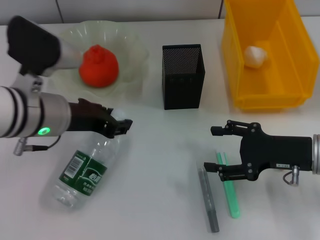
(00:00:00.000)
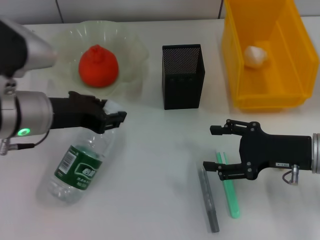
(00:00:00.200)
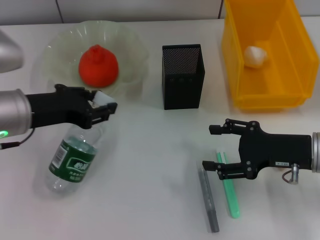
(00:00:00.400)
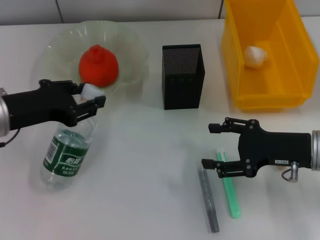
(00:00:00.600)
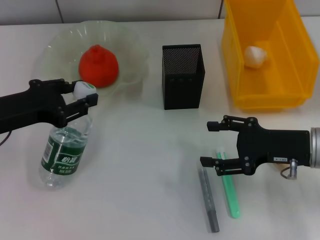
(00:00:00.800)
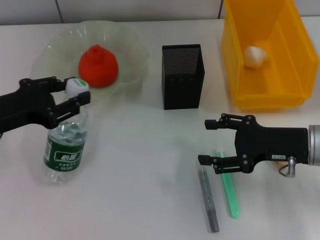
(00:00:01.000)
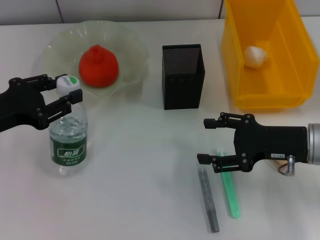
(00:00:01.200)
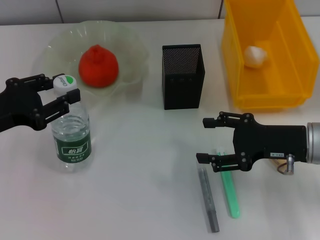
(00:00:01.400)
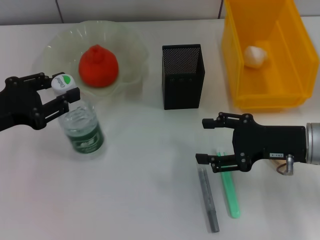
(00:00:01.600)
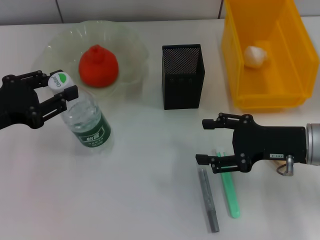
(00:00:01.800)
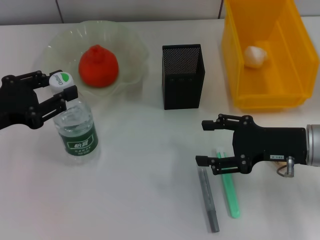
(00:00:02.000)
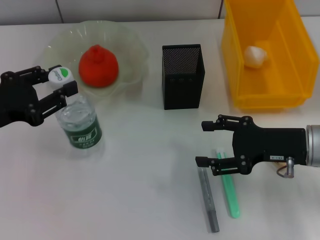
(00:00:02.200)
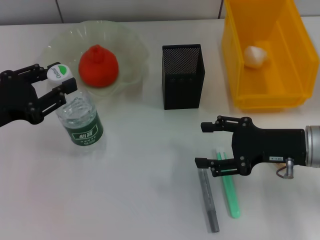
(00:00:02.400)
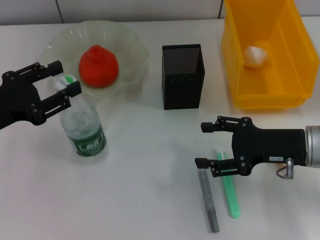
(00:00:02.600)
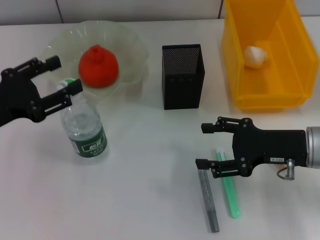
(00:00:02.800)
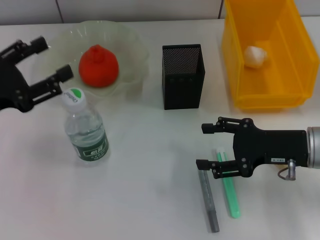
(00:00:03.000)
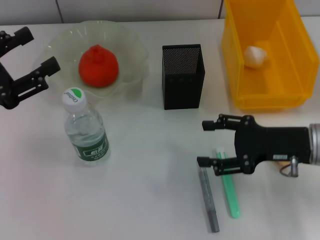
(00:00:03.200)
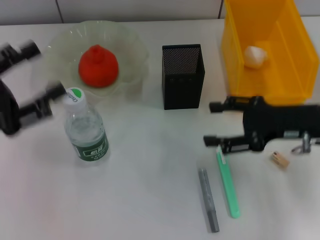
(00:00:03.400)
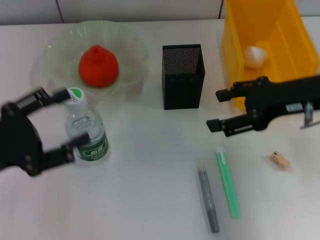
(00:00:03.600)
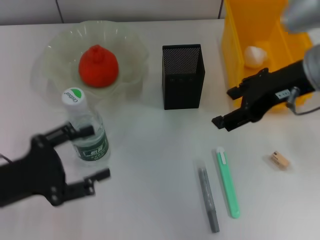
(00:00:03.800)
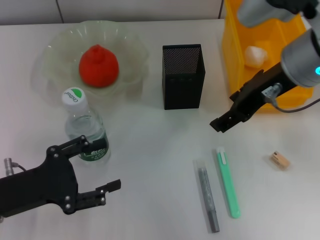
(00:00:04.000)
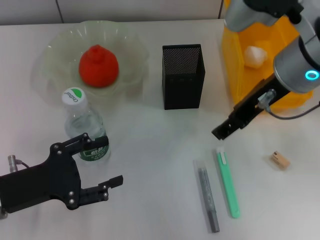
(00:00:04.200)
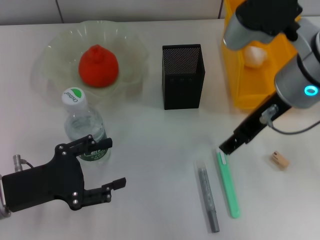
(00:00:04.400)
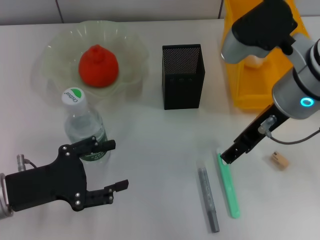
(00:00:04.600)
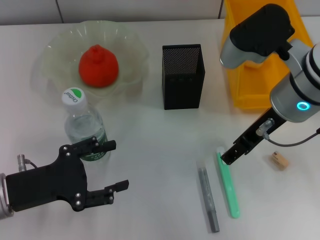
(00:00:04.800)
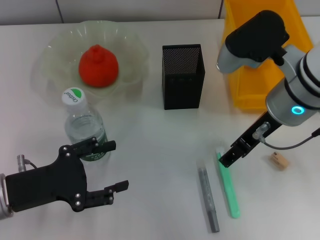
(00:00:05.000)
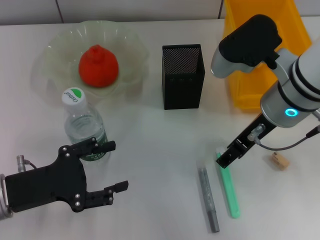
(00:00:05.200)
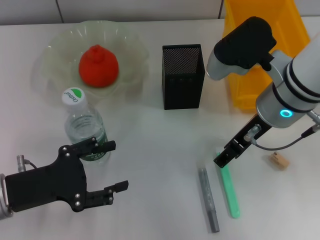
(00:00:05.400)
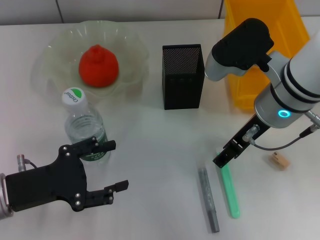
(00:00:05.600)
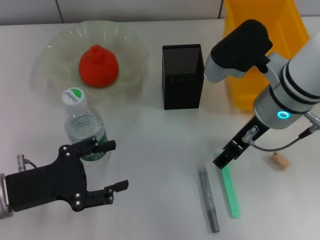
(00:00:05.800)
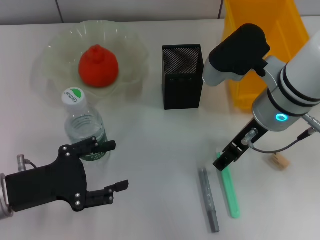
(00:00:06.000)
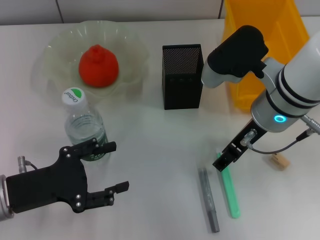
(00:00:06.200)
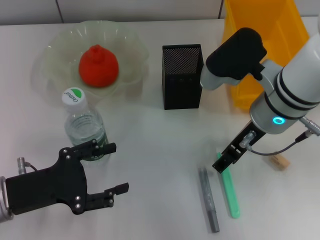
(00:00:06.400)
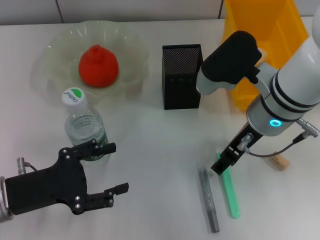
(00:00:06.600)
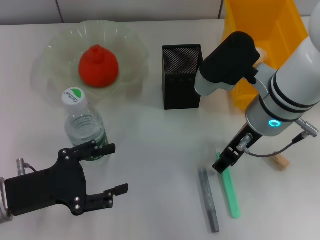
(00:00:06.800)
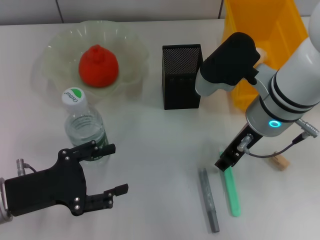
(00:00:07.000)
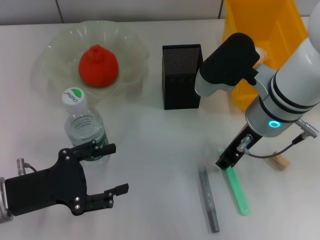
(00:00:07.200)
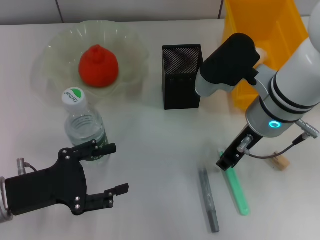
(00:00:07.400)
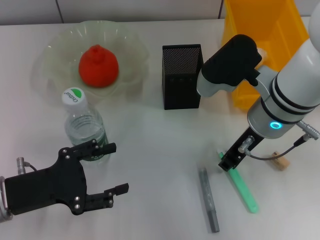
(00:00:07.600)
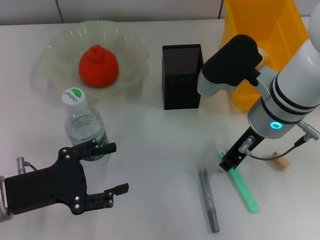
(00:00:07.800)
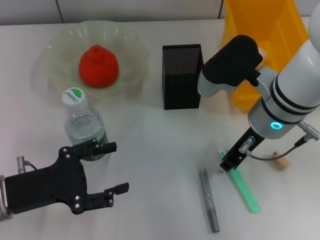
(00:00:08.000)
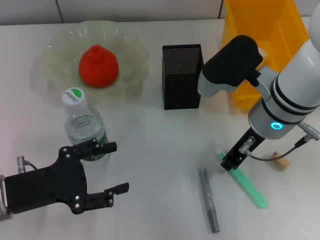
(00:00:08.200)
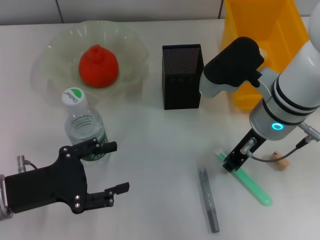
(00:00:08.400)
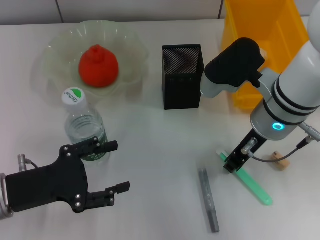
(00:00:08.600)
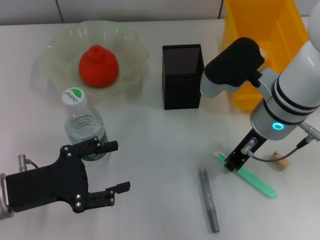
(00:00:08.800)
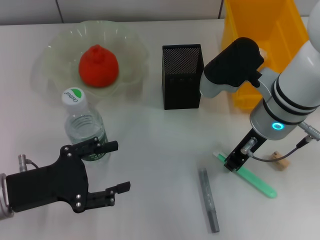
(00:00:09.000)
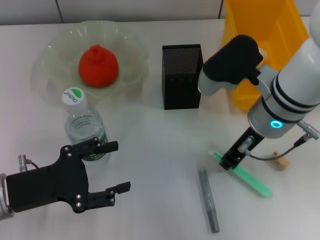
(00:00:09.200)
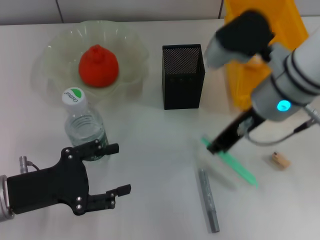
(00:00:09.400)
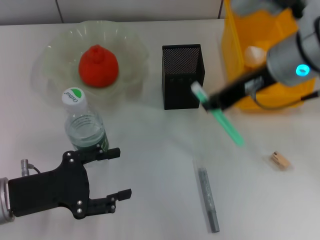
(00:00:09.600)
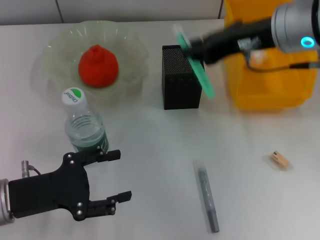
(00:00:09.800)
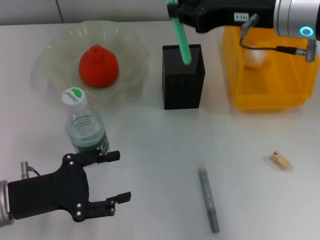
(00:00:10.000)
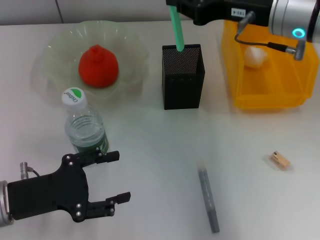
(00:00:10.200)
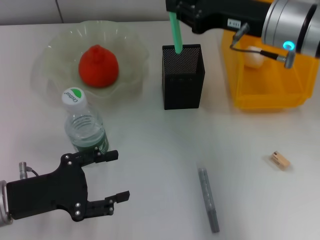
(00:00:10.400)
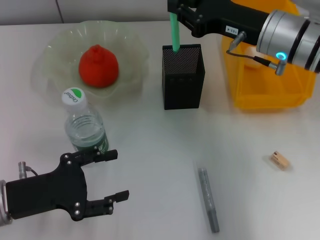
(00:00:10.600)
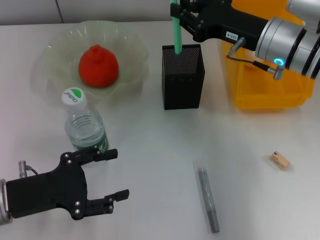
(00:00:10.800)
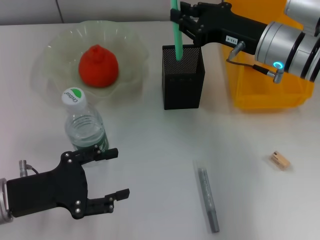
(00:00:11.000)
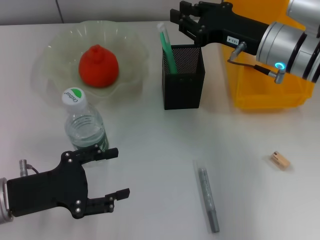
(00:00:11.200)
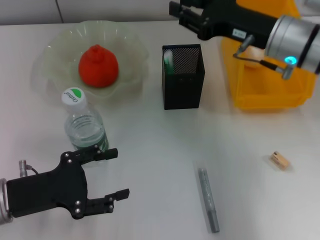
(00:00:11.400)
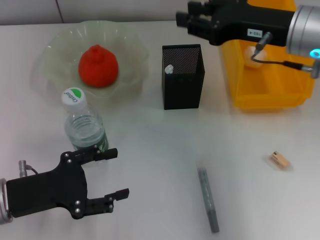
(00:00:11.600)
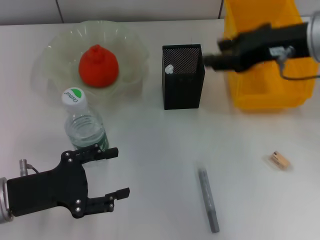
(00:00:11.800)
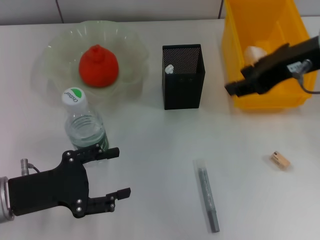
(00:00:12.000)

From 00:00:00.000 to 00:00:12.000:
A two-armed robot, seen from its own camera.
Step, from 00:00:00.000 to 00:00:02.800: Place the water bottle on the table with the left hand.
Step, from 00:00:03.000 to 00:00:08.800: Grab the blue utility knife with the right hand.
Step, from 00:00:09.000 to 00:00:11.400: Place the blue utility knife into the pen holder with the right hand.
From 00:00:00.000 to 00:00:01.600: The left gripper travels to the left by about 10 cm.
From 00:00:01.600 to 00:00:03.000: The left gripper opens.
From 00:00:03.000 to 00:00:04.400: The right gripper travels upward and to the left by roughly 15 cm; the left gripper heads downward, covering roughly 5 cm.
From 00:00:04.400 to 00:00:06.000: The right gripper travels downward by about 5 cm.
From 00:00:06.000 to 00:00:07.600: The right gripper closes.
From 00:00:07.600 to 00:00:09.000: Neither gripper changes place.
From 00:00:09.000 to 00:00:10.400: The right gripper shifts by roughly 10 cm.
From 00:00:10.400 to 00:00:12.000: The right gripper goes some 10 cm upward and backward, and opens up.

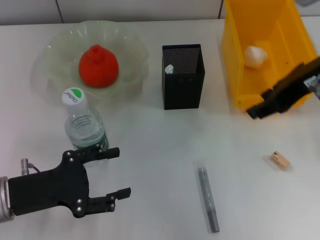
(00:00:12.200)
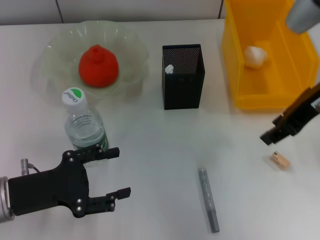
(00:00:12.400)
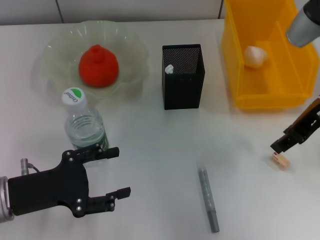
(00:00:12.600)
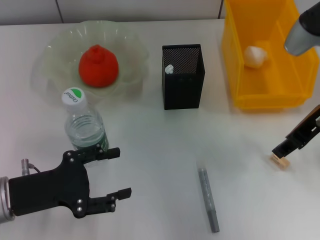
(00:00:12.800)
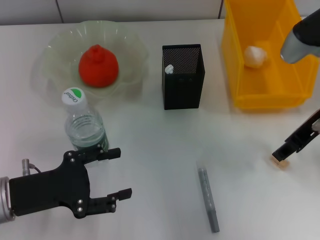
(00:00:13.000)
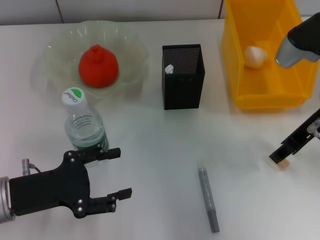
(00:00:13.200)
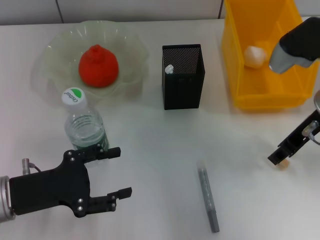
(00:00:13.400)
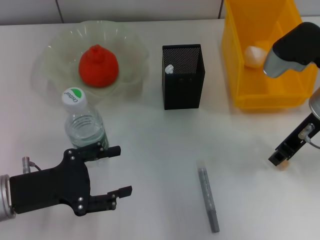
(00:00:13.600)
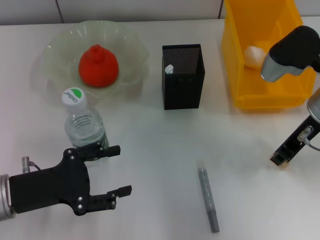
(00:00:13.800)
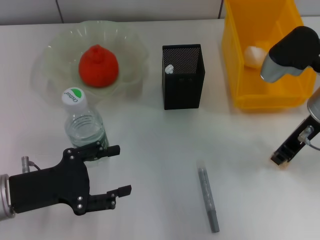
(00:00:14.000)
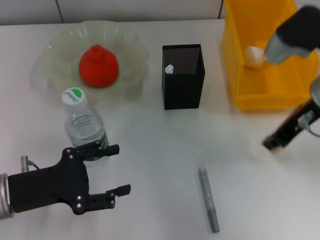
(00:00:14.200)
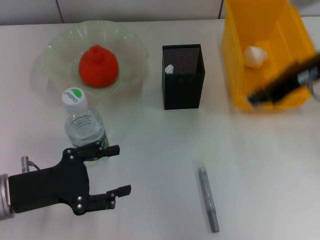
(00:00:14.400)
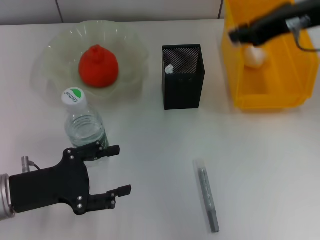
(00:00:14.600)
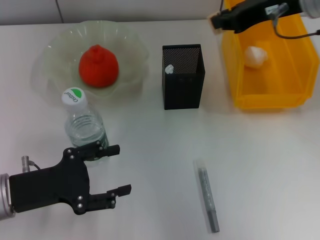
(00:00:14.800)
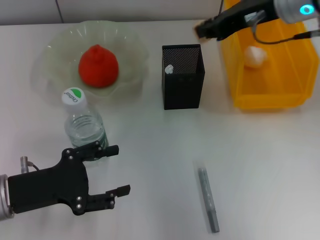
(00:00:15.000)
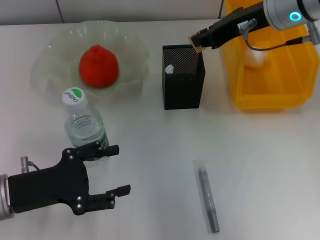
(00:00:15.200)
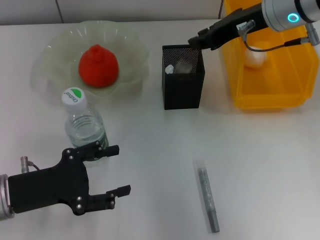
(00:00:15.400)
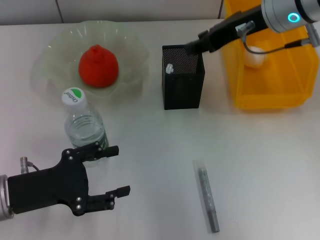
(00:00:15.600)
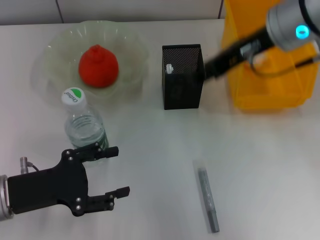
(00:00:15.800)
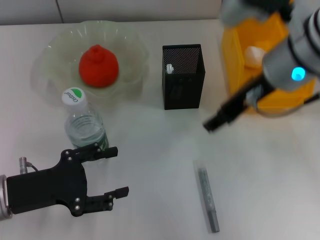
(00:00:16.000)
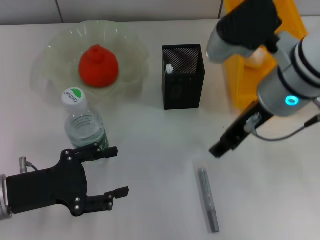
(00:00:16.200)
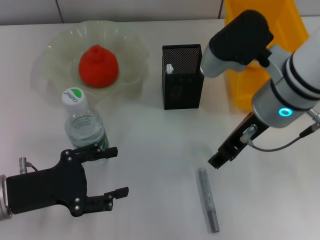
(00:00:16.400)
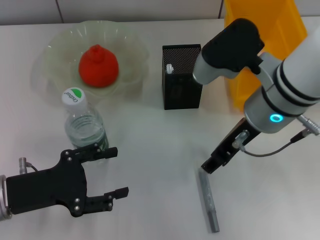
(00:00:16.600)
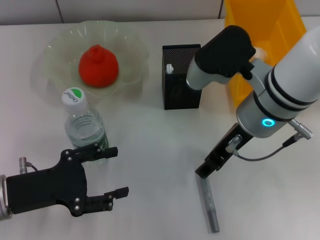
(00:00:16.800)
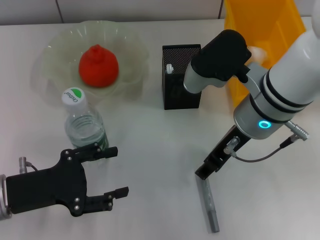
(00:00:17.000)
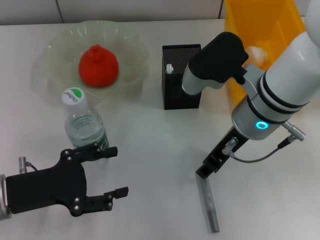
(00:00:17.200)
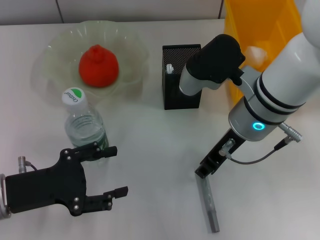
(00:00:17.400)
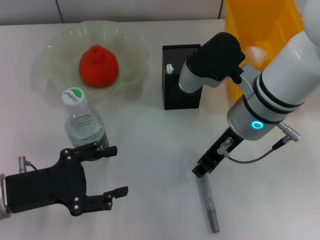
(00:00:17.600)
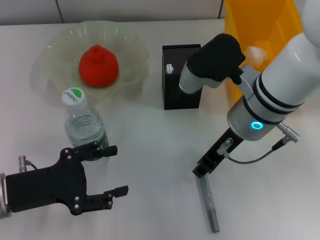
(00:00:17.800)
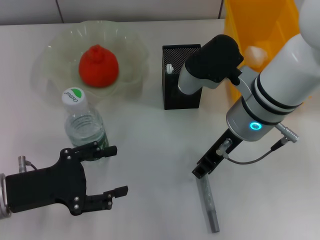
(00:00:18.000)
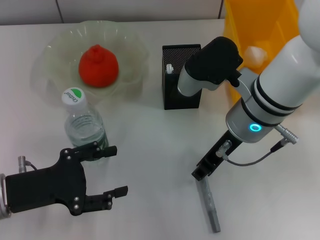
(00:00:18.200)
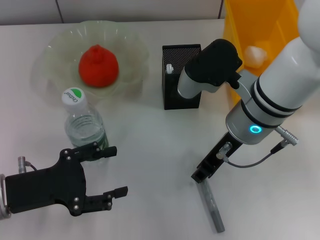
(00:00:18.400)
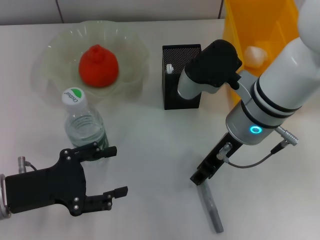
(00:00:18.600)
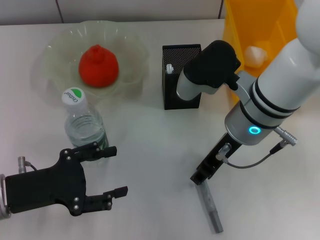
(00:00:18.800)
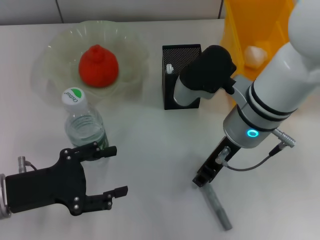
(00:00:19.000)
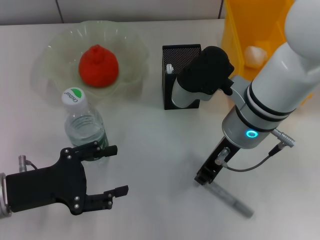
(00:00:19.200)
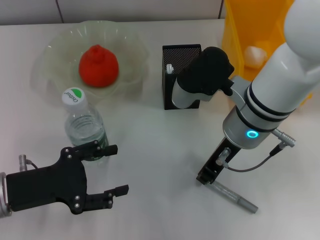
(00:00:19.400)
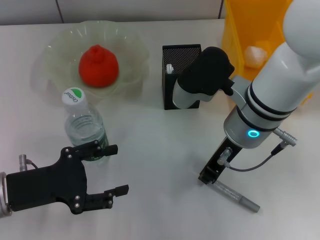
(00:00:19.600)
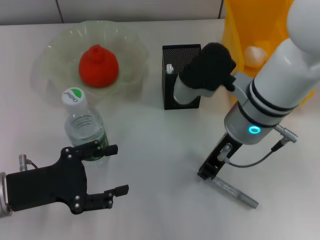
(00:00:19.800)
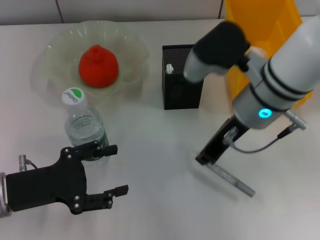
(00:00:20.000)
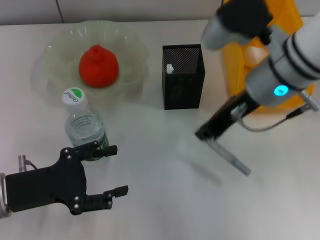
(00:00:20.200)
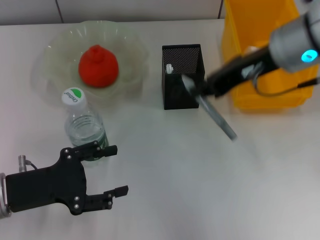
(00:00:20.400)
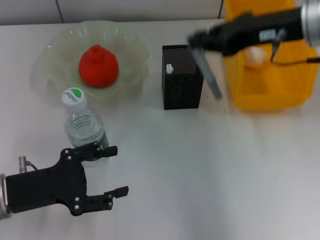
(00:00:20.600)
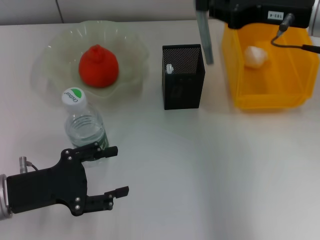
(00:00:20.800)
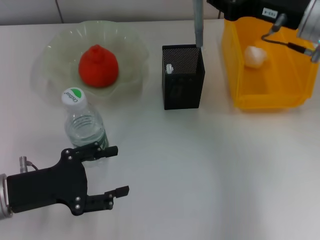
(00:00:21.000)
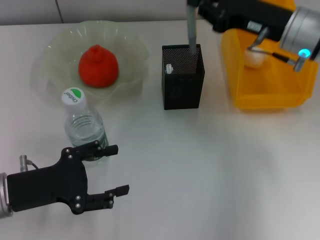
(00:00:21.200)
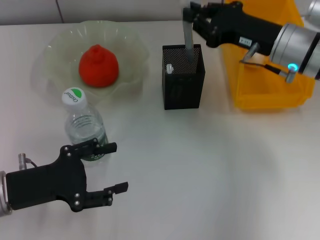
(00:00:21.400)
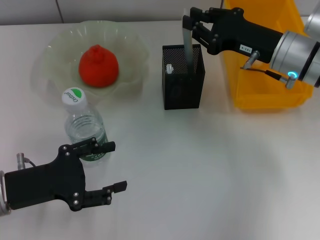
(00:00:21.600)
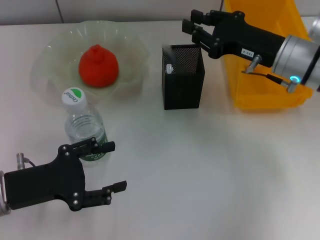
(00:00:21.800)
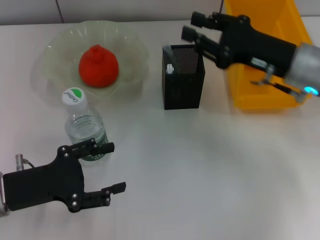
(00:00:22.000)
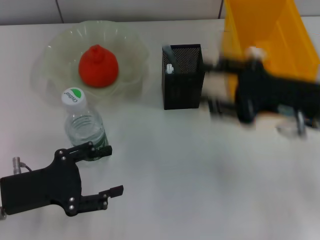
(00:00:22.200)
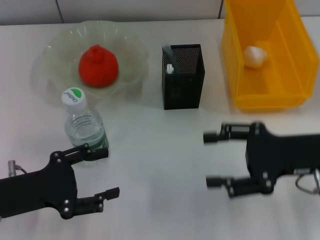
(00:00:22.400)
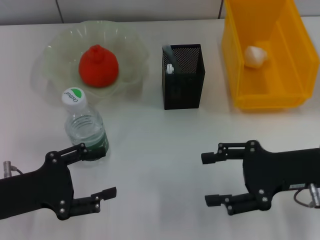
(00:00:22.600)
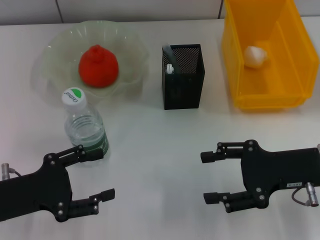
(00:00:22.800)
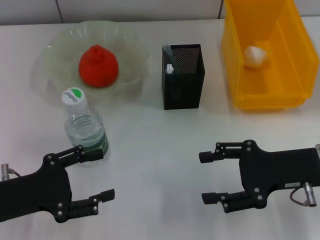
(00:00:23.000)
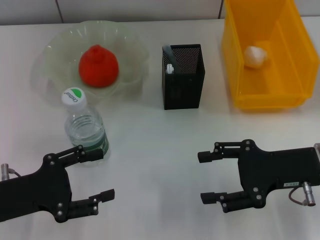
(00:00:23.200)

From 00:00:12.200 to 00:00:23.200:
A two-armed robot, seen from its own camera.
Step, from 00:00:12.200 to 00:00:13.800: Grab the eraser with the right hand.
Step, from 00:00:14.000 to 00:00:15.600: Put the eraser into the pen holder with the right hand.
Step, from 00:00:15.800 to 00:00:19.600: Grab the gray glue with the right hand.
Step, from 00:00:19.800 to 00:00:22.000: Place the gray glue into the pen holder with the right hand.
From 00:00:12.200 to 00:00:13.800: The right gripper shifts roughly 10 cm downward.
From 00:00:13.800 to 00:00:15.400: The right gripper moves upward, forward and to the left, approximately 10 cm.
From 00:00:15.400 to 00:00:17.000: The right gripper goes approximately 10 cm backward and downward, and opens up.
From 00:00:17.000 to 00:00:18.400: The grippers move only a little.
From 00:00:18.400 to 00:00:20.000: The right gripper closes up.
From 00:00:20.000 to 00:00:21.600: The right gripper heads to the right and forward, covering some 10 cm, and moves about 10 cm upward and comes back.
From 00:00:21.600 to 00:00:23.200: The right gripper shifts roughly 10 cm backward, and opens its fingers.
